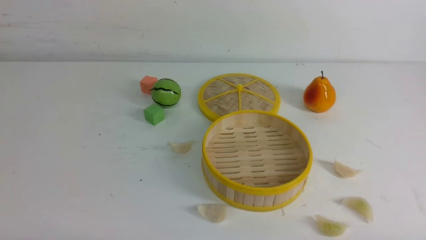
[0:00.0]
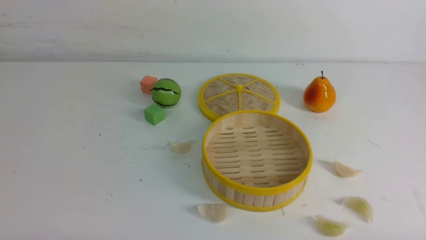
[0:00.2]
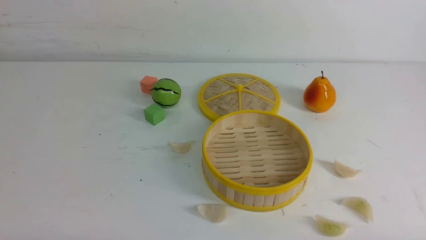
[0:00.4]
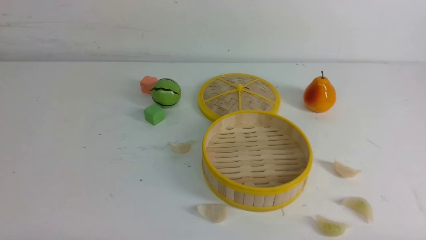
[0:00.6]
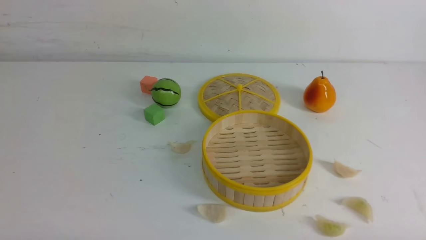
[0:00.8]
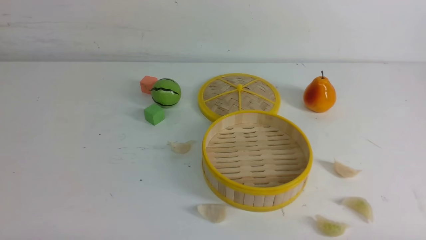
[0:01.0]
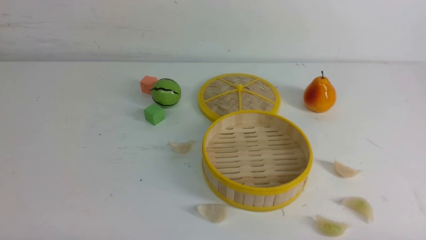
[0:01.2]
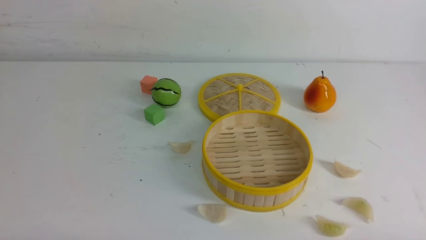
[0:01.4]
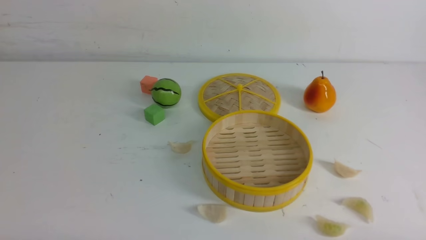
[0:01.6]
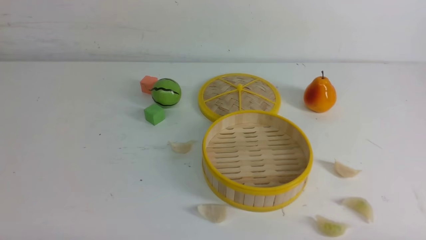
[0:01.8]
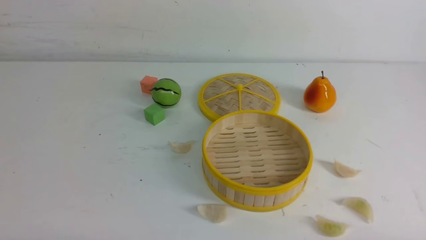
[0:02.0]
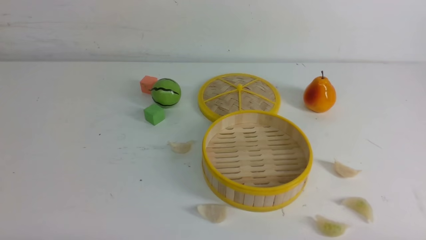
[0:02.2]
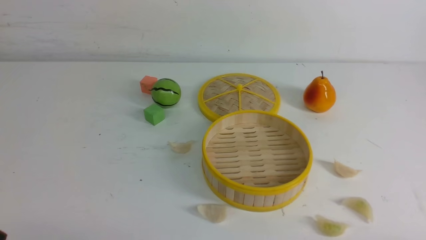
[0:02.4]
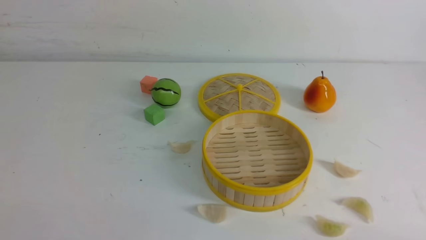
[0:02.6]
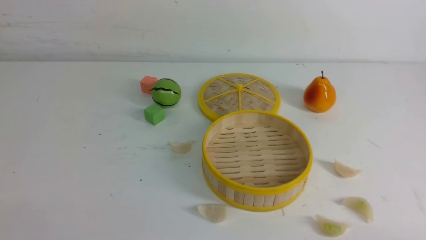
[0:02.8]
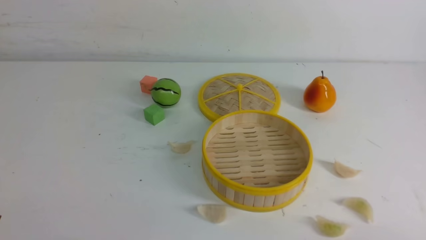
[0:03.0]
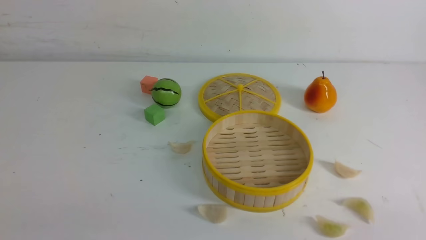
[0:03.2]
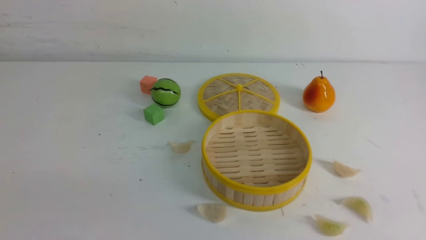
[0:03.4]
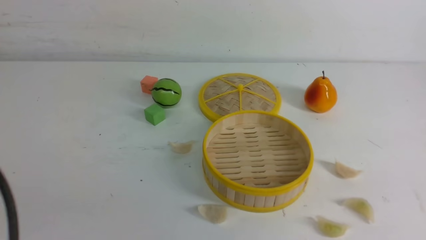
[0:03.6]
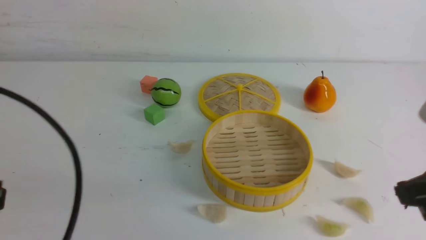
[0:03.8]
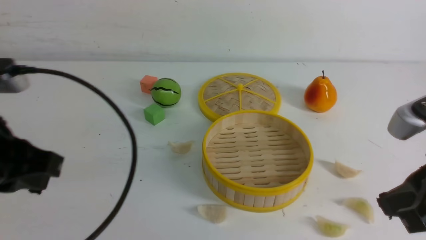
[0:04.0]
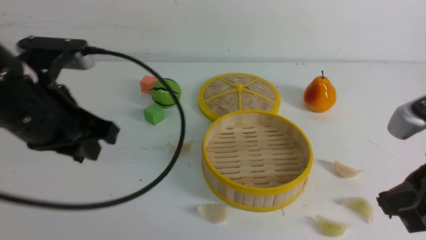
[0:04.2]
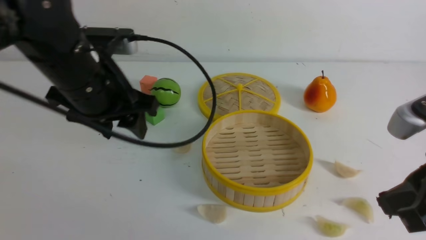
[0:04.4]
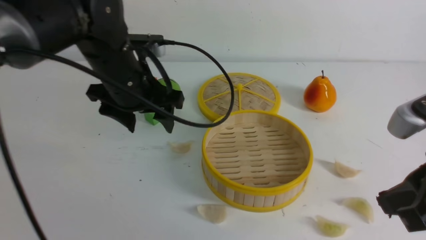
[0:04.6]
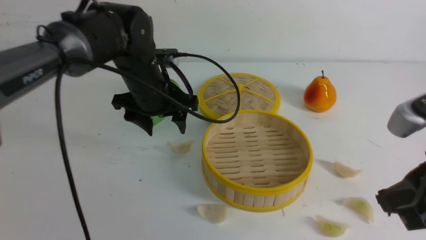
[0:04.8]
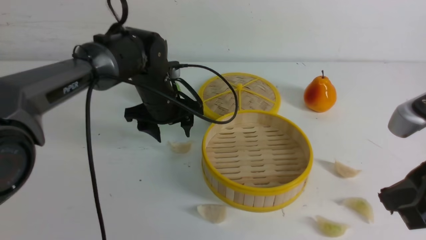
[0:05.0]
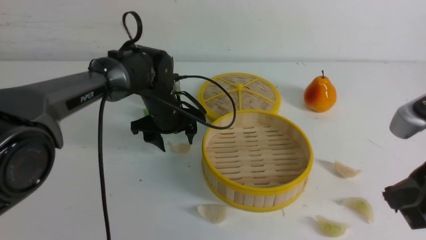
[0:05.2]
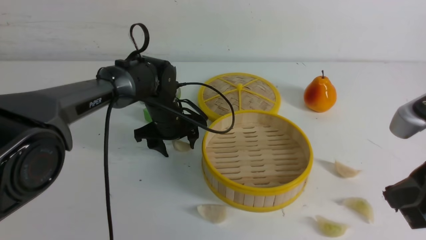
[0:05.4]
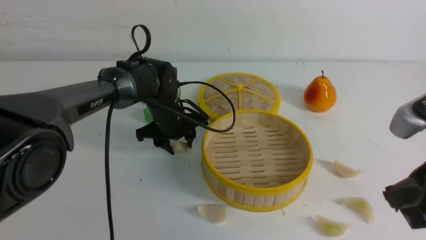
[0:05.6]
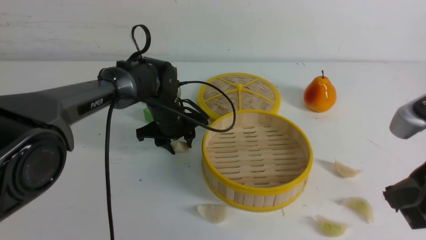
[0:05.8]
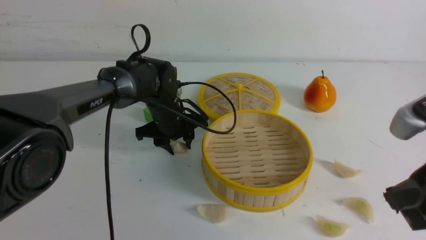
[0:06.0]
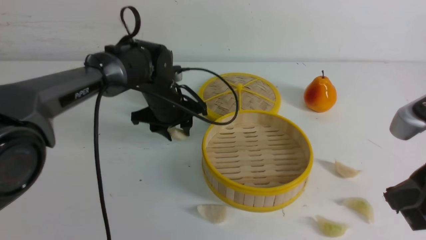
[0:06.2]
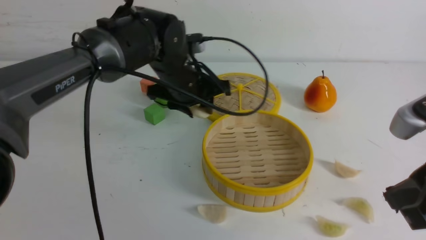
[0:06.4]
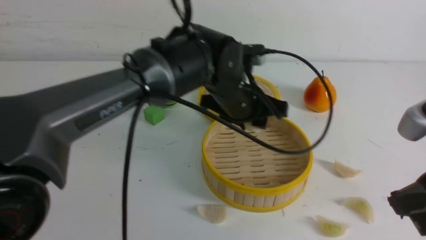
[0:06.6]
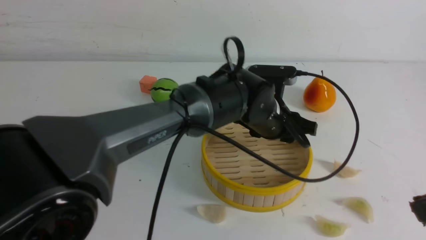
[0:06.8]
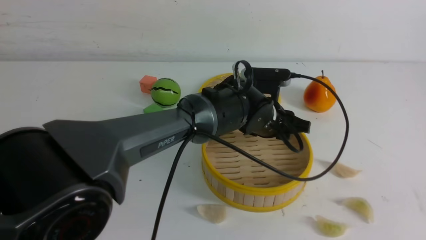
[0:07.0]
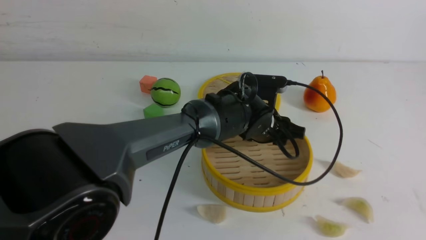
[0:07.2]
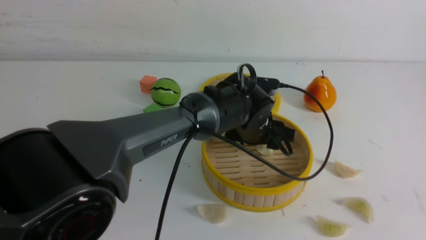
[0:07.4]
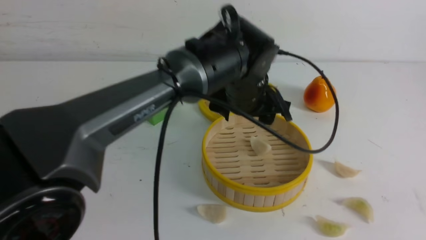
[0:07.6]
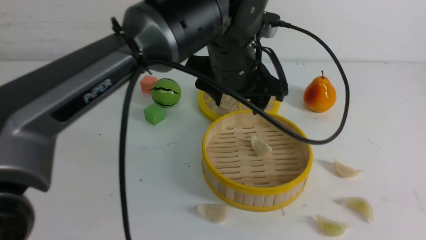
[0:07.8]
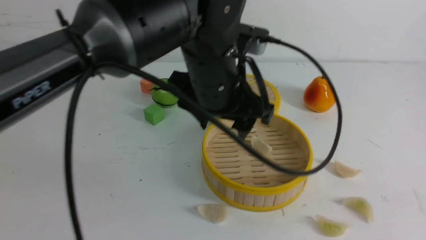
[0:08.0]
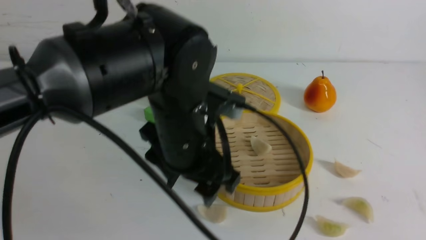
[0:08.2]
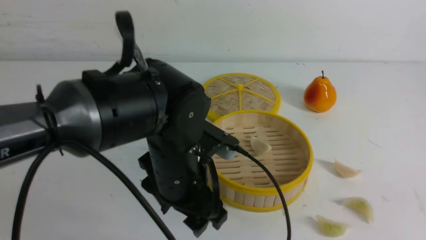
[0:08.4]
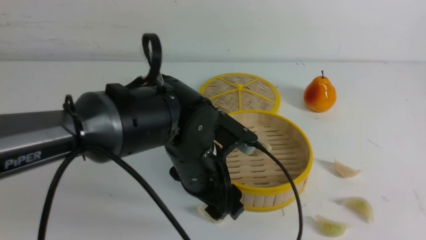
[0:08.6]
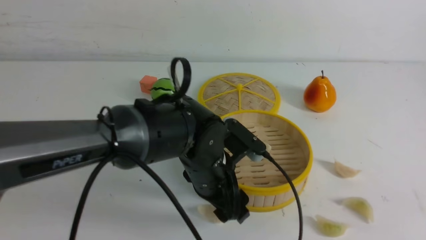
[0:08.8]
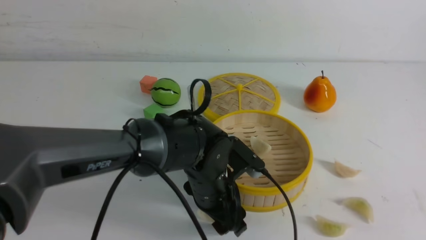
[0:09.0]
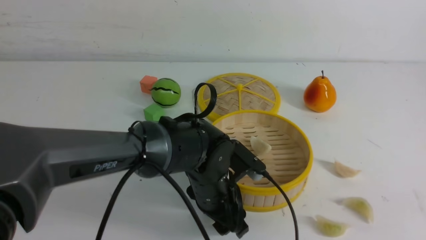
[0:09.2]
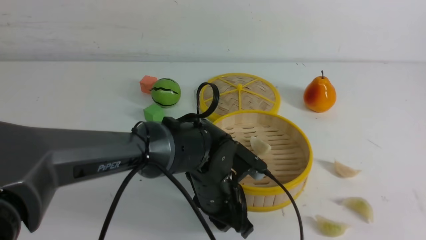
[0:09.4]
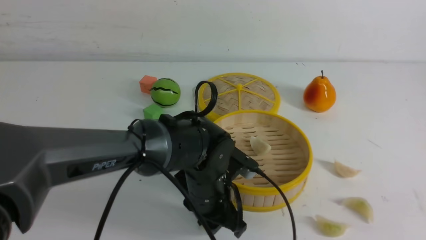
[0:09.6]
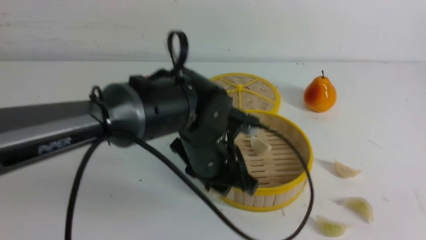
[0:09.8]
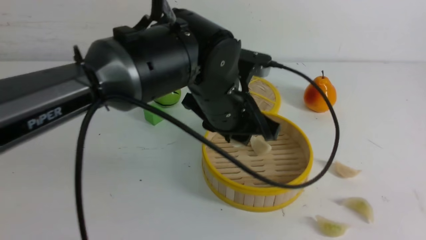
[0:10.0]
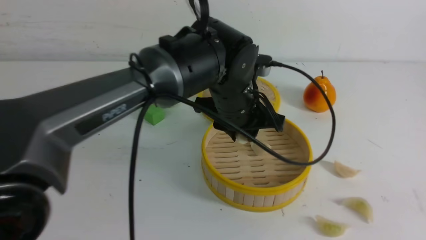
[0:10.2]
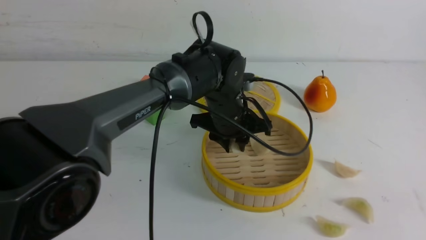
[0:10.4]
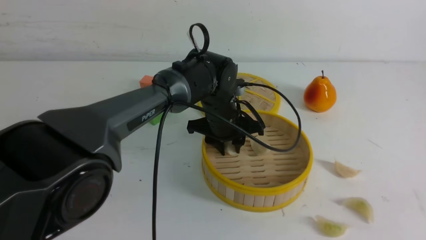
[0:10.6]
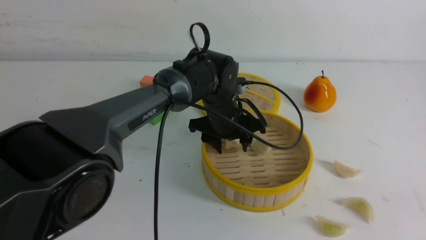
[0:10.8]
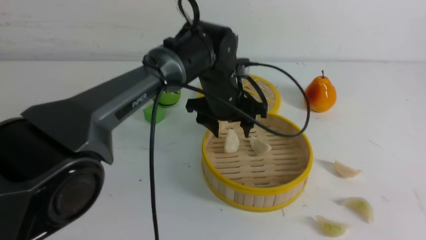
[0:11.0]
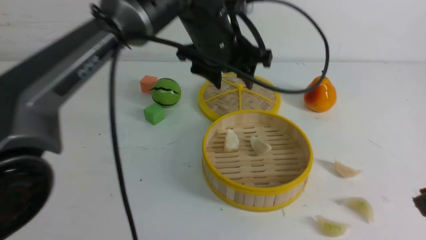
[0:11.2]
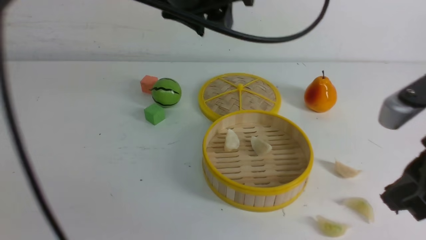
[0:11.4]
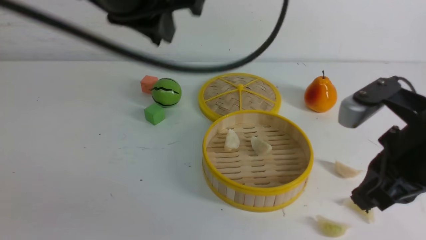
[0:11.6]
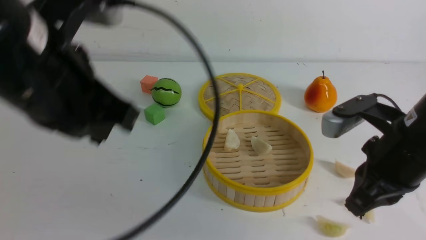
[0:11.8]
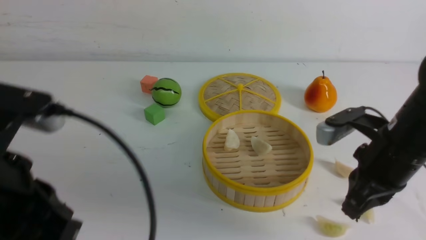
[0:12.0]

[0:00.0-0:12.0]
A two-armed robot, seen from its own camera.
Task of the whole recording: put the dumplings into the steamer on the white table.
Step, 0:00.0 to 0:05.8: use the left arm to grab a dumpling.
Step, 0:06.0 to 0:07.2: use the left arm to put the dumpling into the steamer.
Step, 0:07.6 to 0:09.0: use the left arm to grab a dumpling.
Step, 0:09.2 to 0:10.6: use the left arm to put the dumpling into the steamer.
0:03.0 to 0:04.4: The right gripper is displaced upward, forward and to the left by approximately 15 cm, and closes. Meanwhile the left gripper moves forward and to the right, approximately 30 cm, and opens.
0:04.4 to 0:06.0: The left gripper is displaced downward and forward by approximately 20 cm.
0:06.0 to 0:07.6: The left gripper is displaced to the right, upward and backward by about 20 cm, and opens its fingers; the right gripper is displaced backward by approximately 5 cm.
0:07.6 to 0:09.0: The left gripper travels downward and backward by approximately 15 cm.
0:09.0 to 0:10.4: The left gripper heads forward and upward, covering about 10 cm, and closes its fingers.
0:10.4 to 0:12.0: The left gripper heads backward, to the left and upward, covering roughly 35 cm, and closes up. Meanwhile the right gripper moves forward and downward, approximately 20 cm.

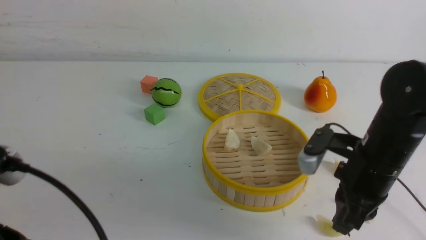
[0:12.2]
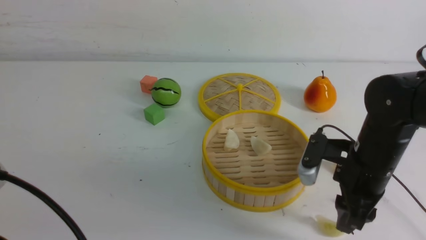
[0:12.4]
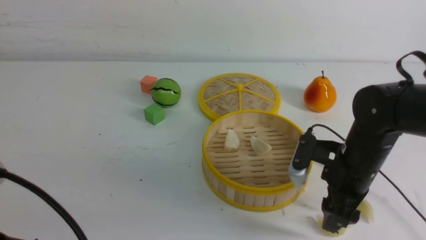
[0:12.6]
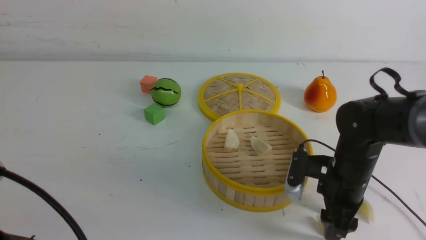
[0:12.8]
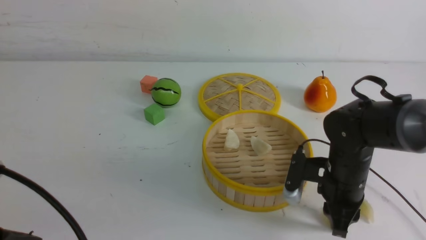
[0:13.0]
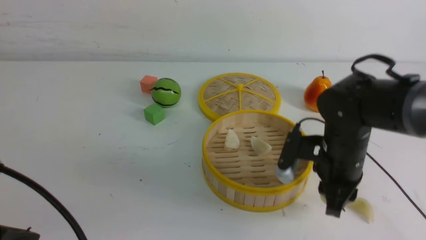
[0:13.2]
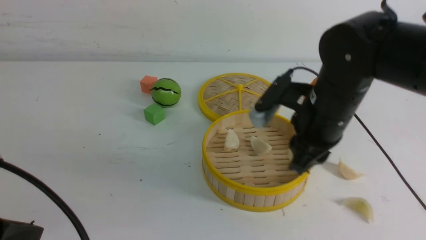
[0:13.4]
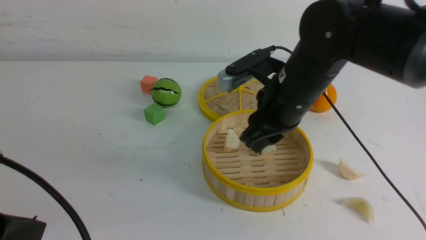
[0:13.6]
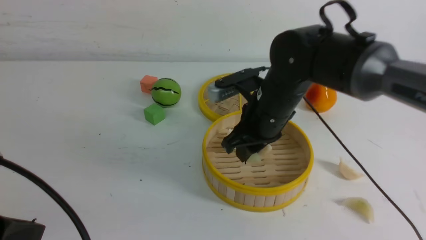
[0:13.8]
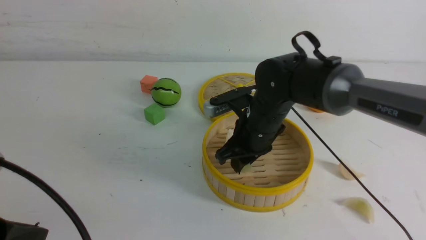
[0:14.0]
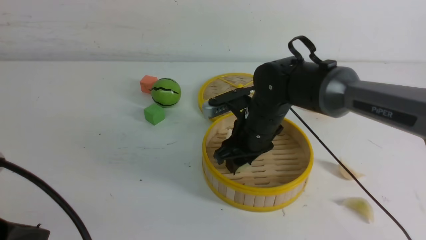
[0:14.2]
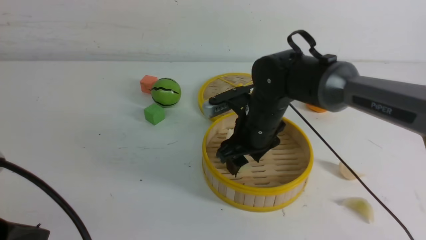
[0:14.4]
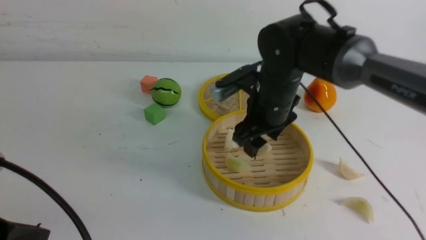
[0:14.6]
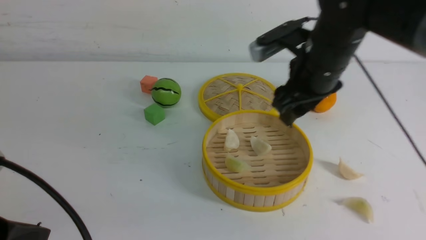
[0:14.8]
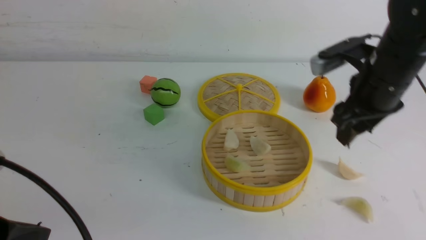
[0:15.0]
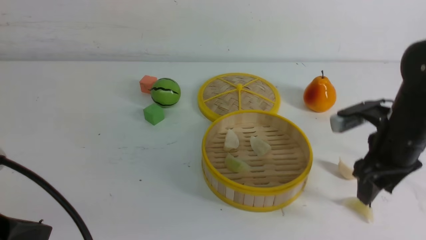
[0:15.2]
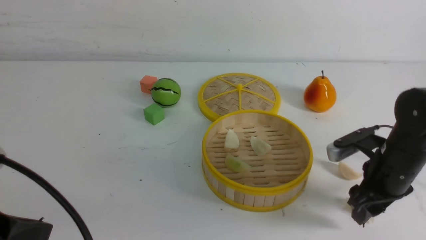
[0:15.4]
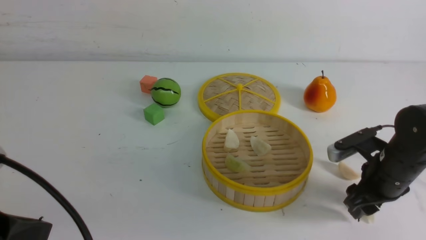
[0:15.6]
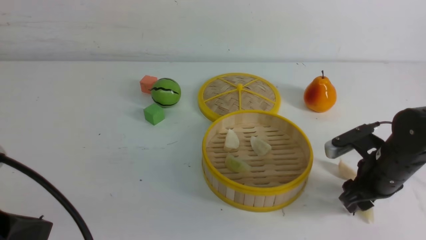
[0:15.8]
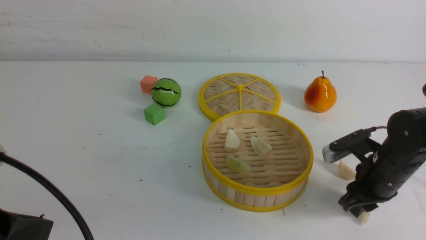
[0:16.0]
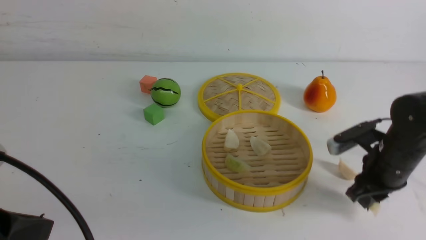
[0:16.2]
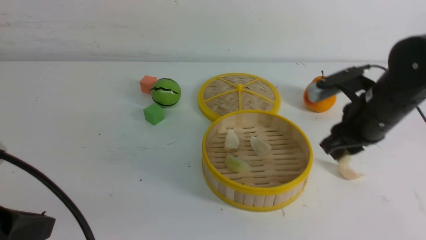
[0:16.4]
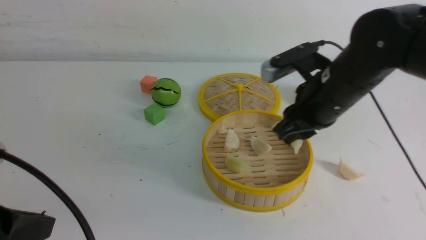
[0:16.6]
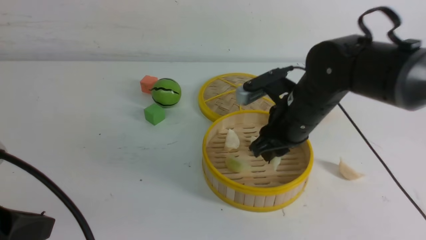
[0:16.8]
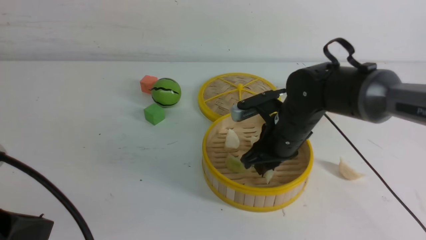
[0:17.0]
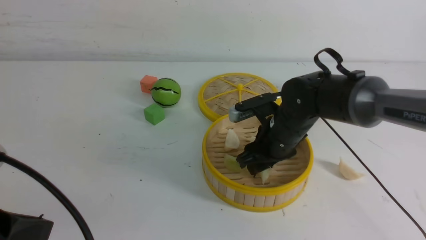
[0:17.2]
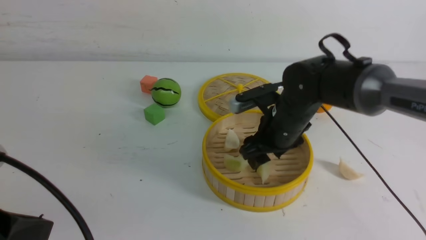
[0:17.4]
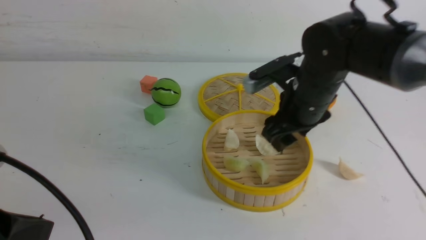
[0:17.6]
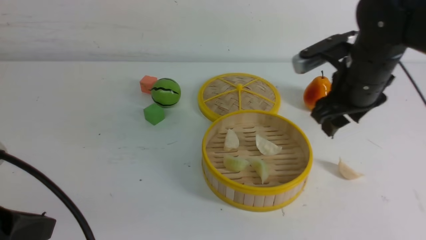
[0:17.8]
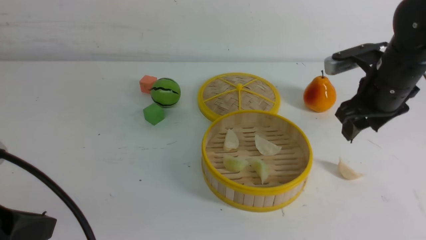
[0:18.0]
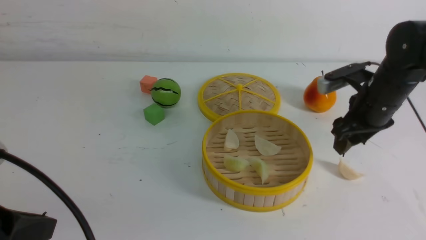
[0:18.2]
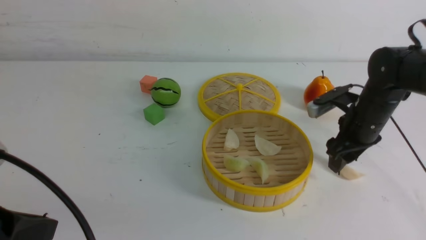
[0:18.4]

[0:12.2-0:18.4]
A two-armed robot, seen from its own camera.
Task of the whole recording: put the dumplings into the steamer on the white table.
Step, 0:13.2 to 0:14.4: use the right arm to put the dumpling into the steamer.
Step, 0:14.6 to 0:16.0: use the right arm to grab a dumpling.
Step, 0:16.2 to 0:17.2: use the right arm to put the dumpling into the steamer.
0:12.2 to 0:13.8: The right gripper travels to the left and forward by roughly 15 cm, and opens and closes again.
0:13.8 to 0:15.4: The right gripper is displaced to the right by about 20 cm, and opens up.
0:15.4 to 0:16.8: The right gripper is displaced to the left and upward by roughly 15 cm, and closes up.
0:16.8 to 0:18.4: The right gripper moves to the right and forward, approximately 15 cm, and opens its fingers.
